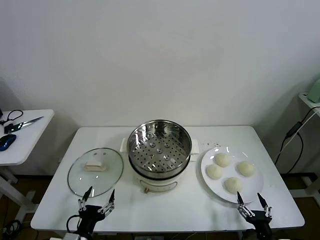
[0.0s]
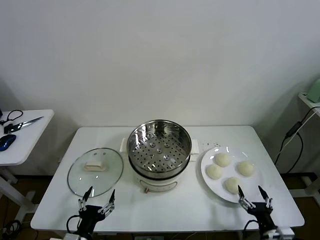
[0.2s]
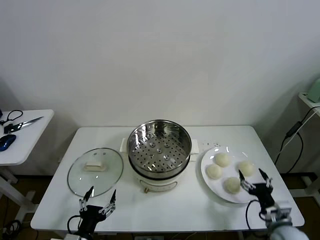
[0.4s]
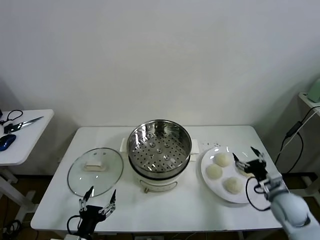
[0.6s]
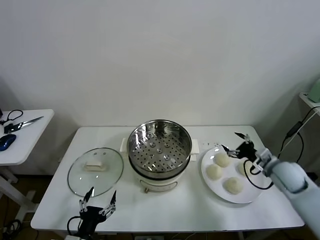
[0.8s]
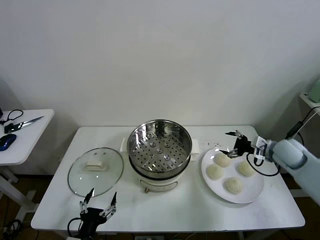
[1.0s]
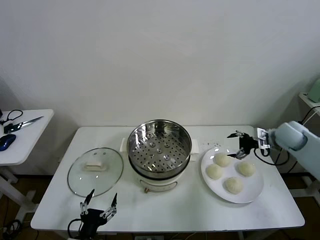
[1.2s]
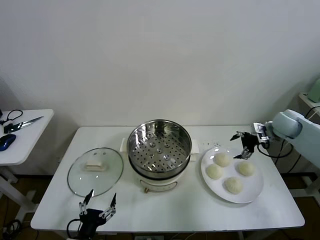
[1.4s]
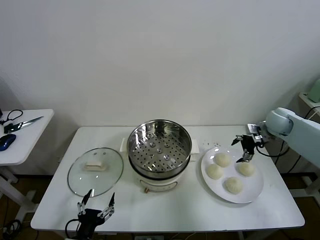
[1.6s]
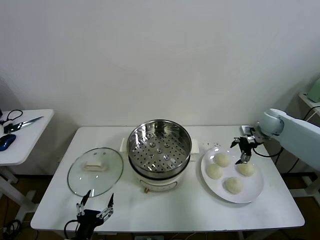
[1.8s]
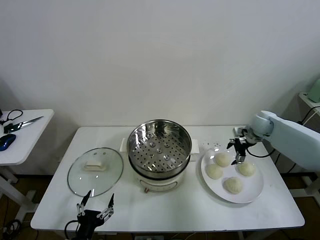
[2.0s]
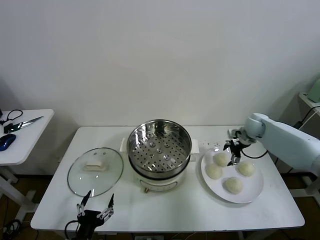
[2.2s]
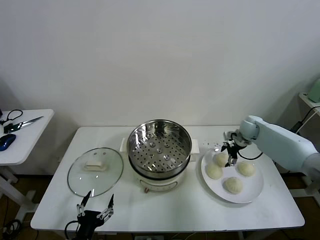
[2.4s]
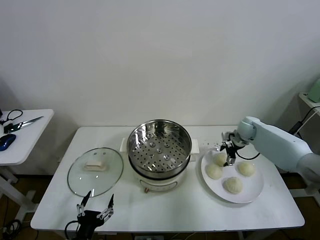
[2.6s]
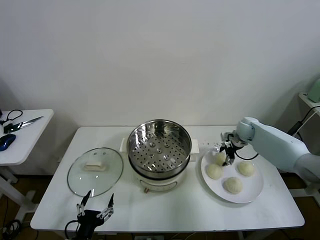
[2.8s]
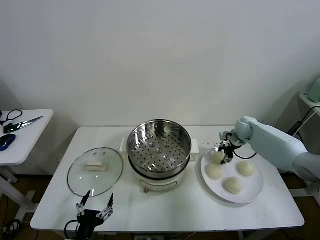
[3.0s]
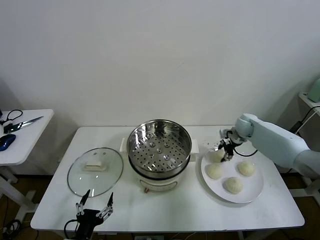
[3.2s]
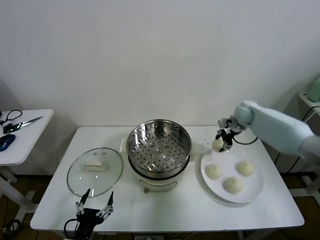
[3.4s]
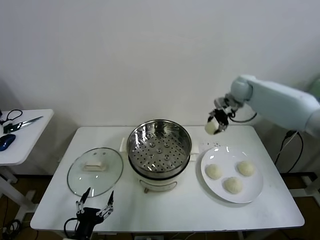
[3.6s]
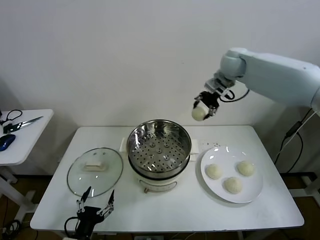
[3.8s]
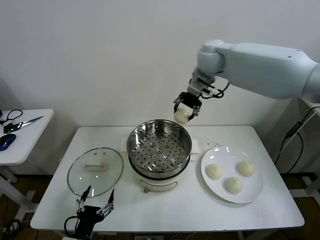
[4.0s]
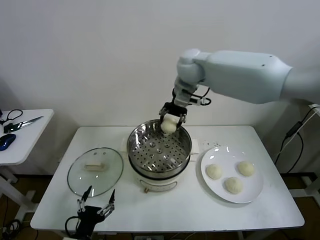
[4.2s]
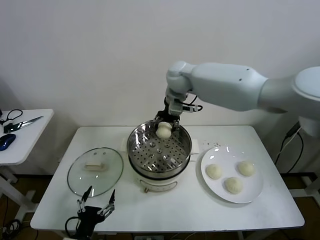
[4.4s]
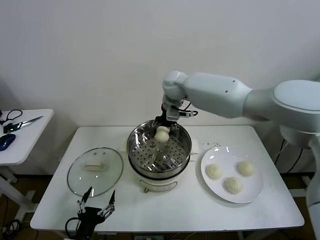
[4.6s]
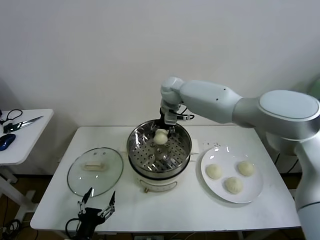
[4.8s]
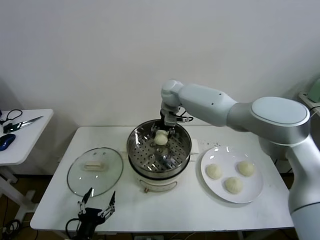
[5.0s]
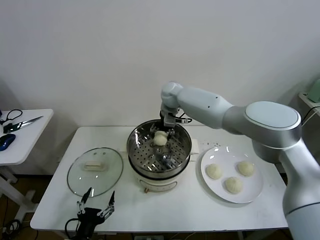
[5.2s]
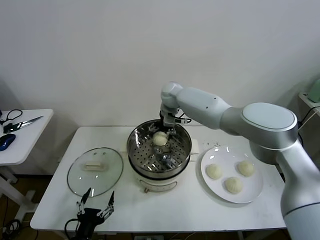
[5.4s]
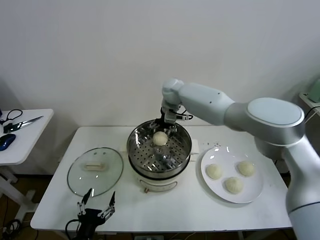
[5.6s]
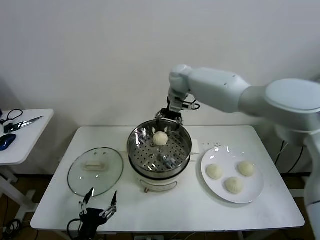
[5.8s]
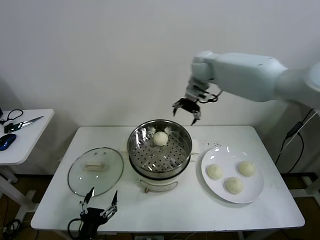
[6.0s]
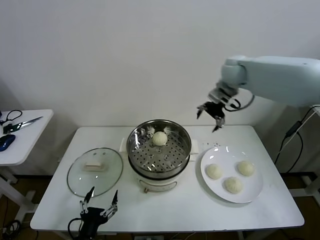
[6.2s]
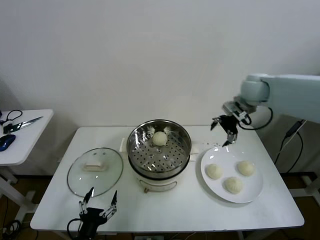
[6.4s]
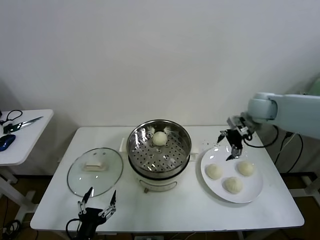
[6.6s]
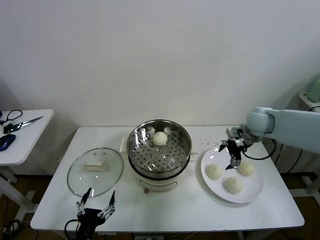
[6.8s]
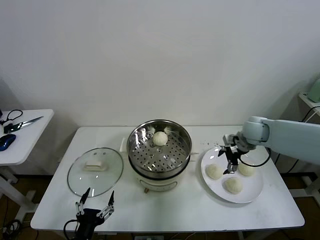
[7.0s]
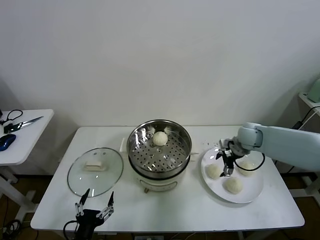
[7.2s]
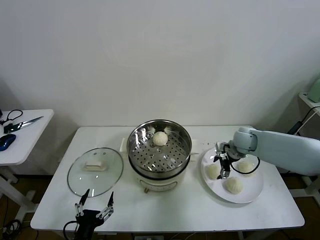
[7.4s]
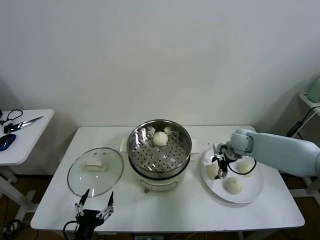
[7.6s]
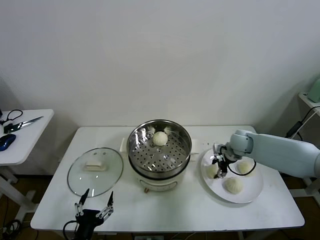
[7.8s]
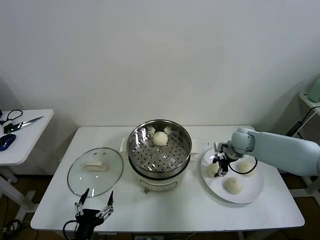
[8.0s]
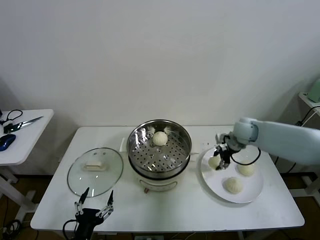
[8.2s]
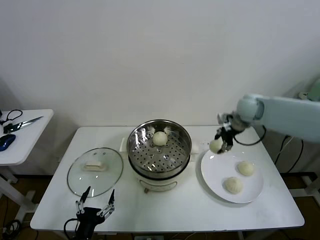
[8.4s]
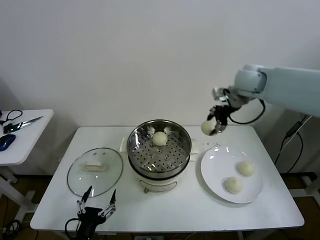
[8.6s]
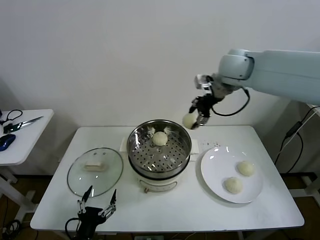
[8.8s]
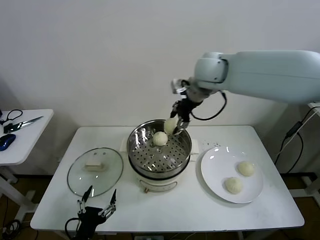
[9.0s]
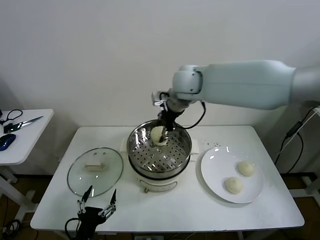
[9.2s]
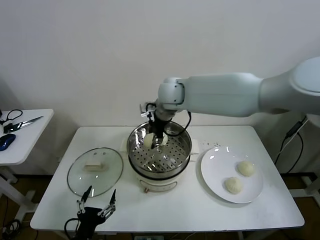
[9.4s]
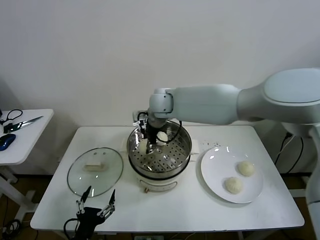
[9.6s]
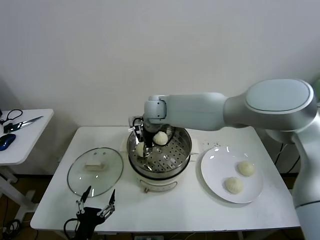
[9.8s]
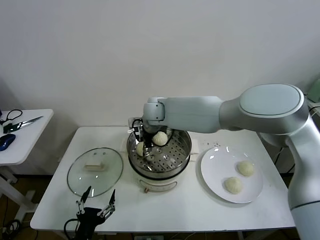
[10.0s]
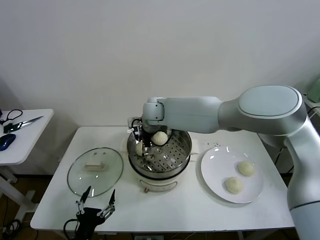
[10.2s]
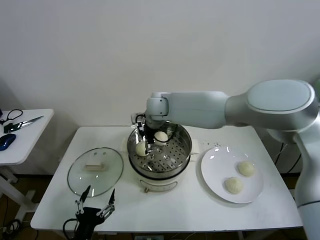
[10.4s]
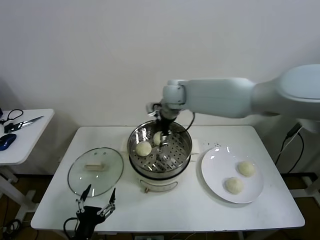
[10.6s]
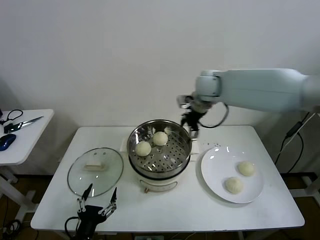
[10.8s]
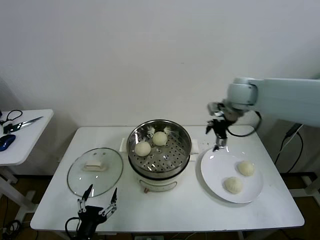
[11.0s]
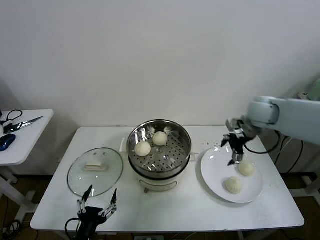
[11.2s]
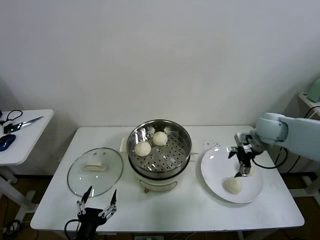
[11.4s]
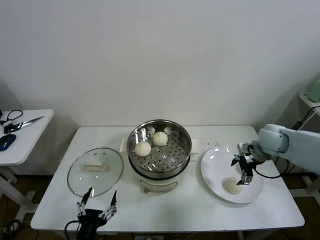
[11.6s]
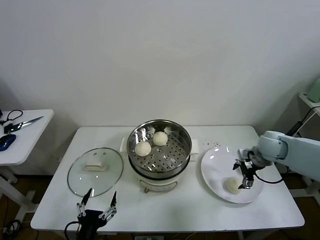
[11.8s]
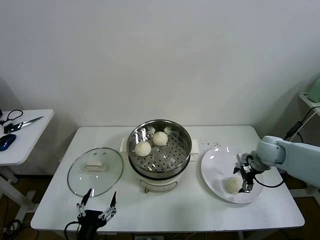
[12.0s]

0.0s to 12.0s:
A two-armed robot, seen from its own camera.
Task of the whole recording: take steamed baozi put them in steamer then cover it.
Step, 0.0s to 2.8s: Grasp the baozi in the plate with right gripper.
Step, 3.0s to 5.2s: Place the baozi on the steamer with right gripper.
Step, 5.6s to 7.8s: Grasp the baozi in the plate with right gripper.
Step, 8.0s to 10.2s: Place the baozi on the steamer with right gripper.
1.6s to 3.0s: The right gripper goes approximately 10 cm downward, to the left and forward, and closes its fingers.
3.0s to 4.4s: The right gripper travels to the left and upward by some 40 cm.
4.4s to 6.0s: The right gripper travels to the right by approximately 15 cm, and opens up.
6.0s to 7.6s: The right gripper is displaced downward and to the right by about 30 cm.
7.6s to 9.0s: The right gripper heads upward and to the left, covering approximately 35 cm, and closes its fingers.
9.0s to 10.4s: The right gripper moves downward and to the left, roughly 15 cm, and opens.
10.4s to 12.0s: The right gripper goes roughly 35 cm to the right.

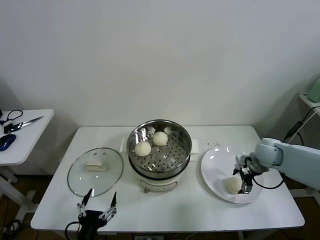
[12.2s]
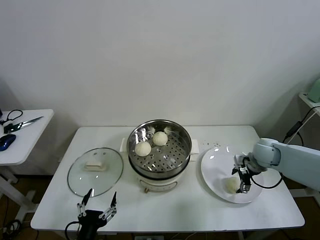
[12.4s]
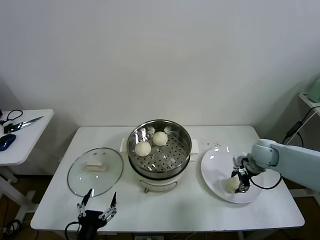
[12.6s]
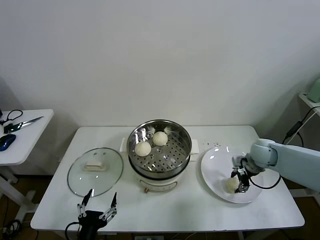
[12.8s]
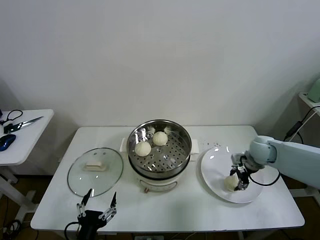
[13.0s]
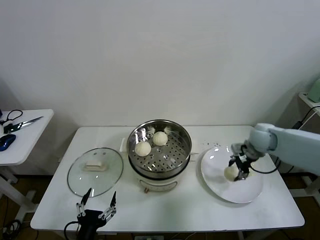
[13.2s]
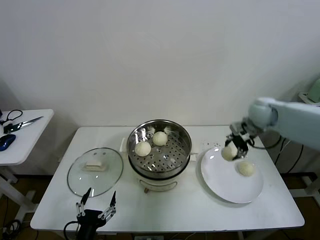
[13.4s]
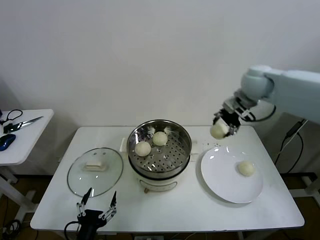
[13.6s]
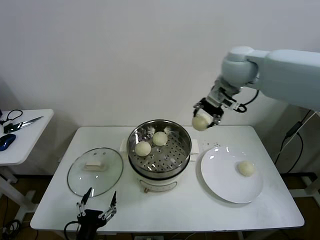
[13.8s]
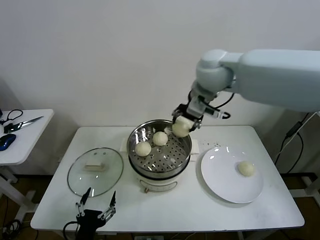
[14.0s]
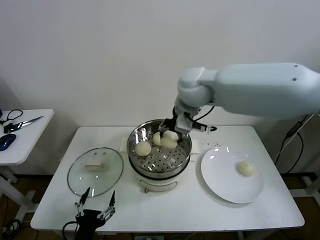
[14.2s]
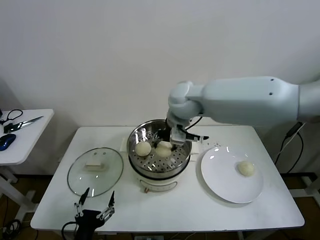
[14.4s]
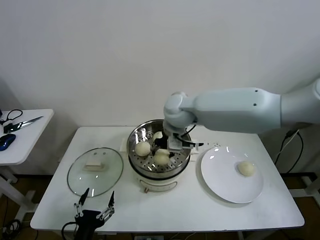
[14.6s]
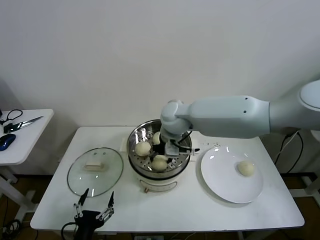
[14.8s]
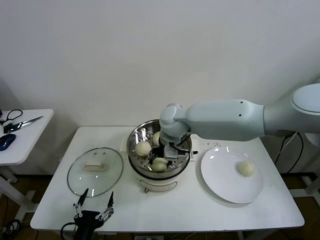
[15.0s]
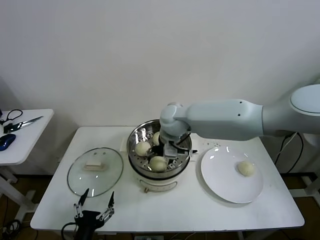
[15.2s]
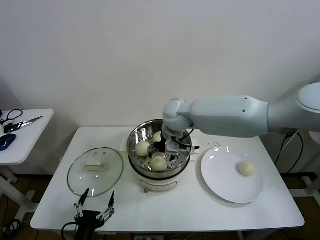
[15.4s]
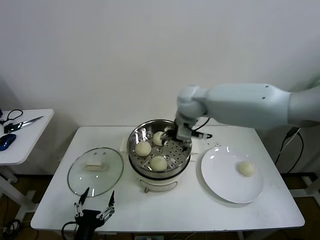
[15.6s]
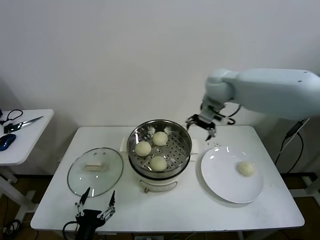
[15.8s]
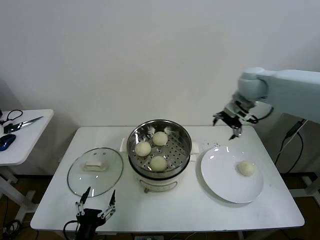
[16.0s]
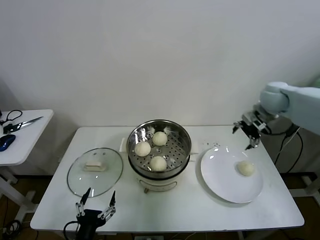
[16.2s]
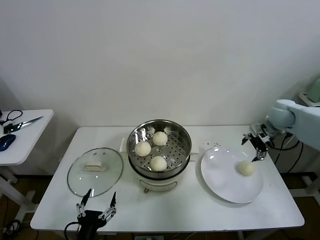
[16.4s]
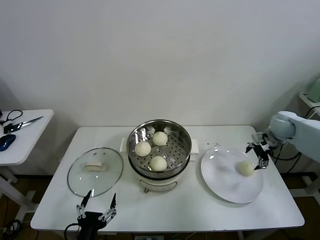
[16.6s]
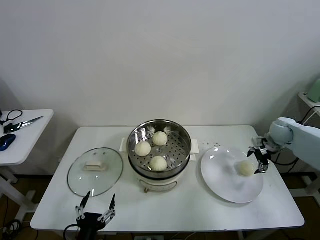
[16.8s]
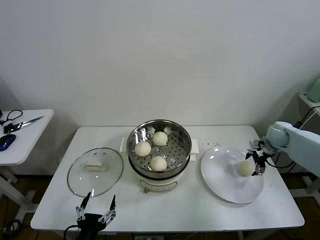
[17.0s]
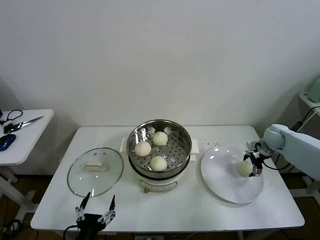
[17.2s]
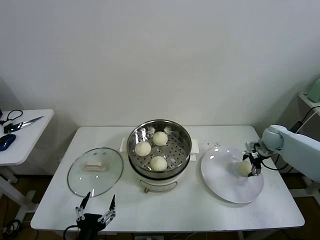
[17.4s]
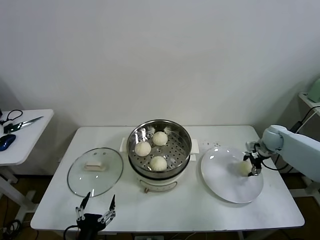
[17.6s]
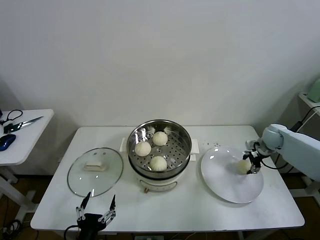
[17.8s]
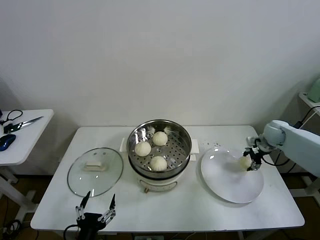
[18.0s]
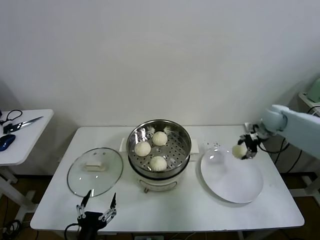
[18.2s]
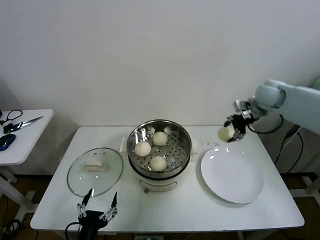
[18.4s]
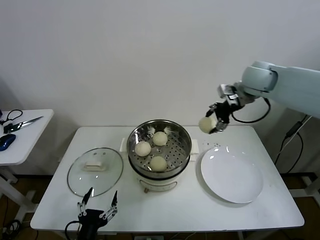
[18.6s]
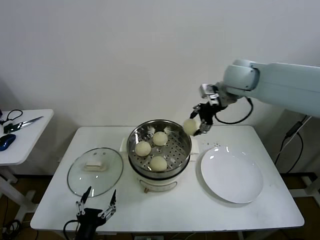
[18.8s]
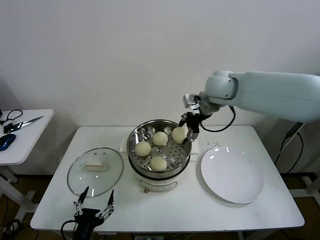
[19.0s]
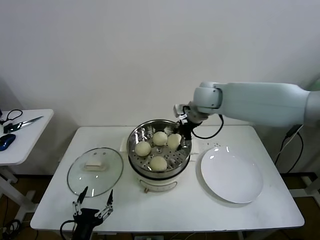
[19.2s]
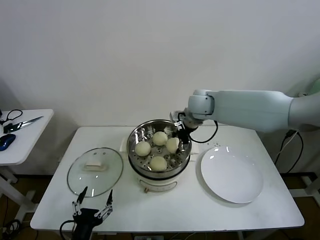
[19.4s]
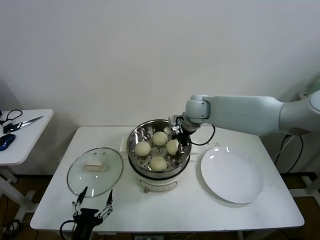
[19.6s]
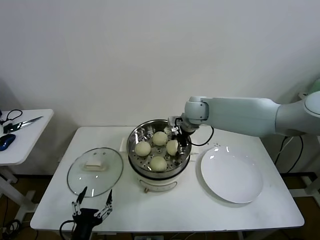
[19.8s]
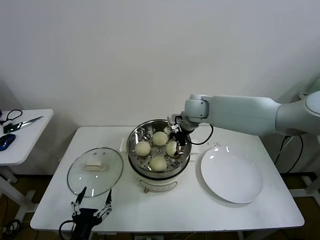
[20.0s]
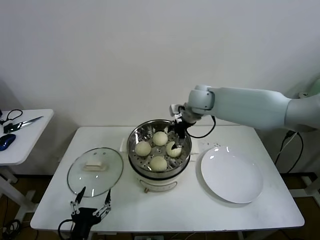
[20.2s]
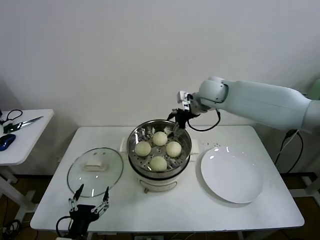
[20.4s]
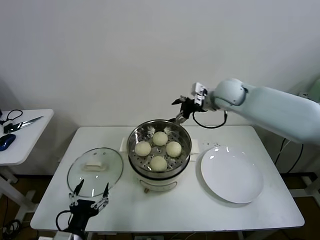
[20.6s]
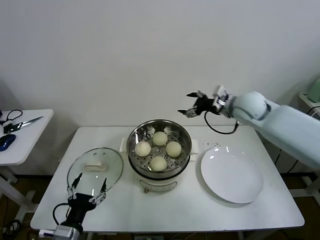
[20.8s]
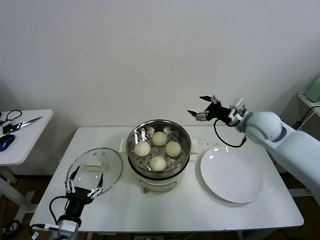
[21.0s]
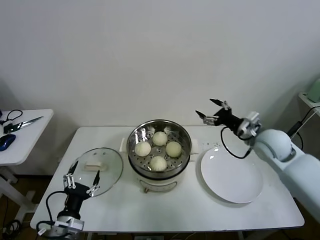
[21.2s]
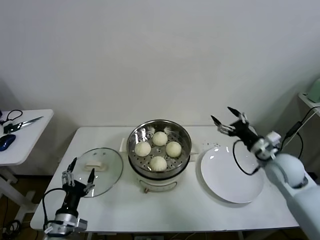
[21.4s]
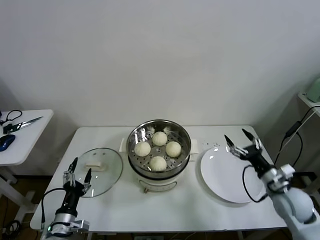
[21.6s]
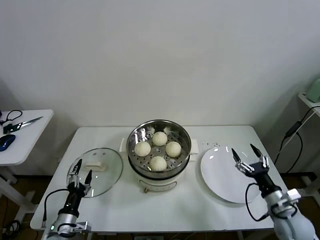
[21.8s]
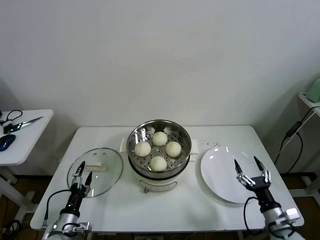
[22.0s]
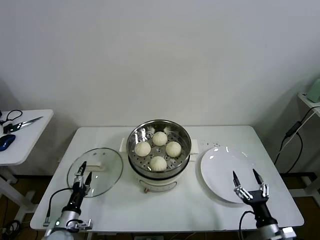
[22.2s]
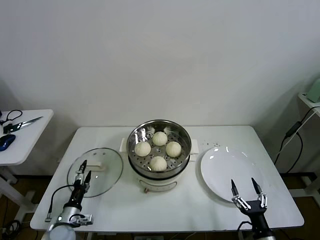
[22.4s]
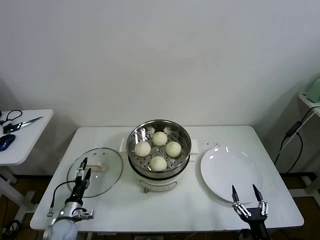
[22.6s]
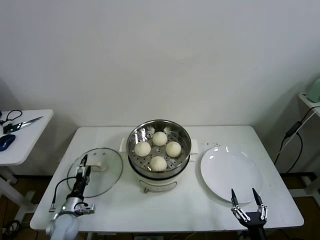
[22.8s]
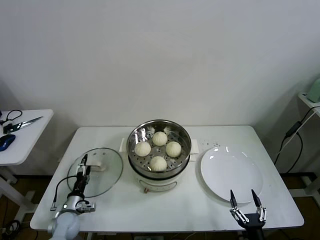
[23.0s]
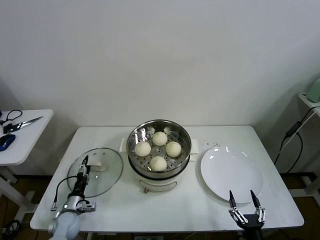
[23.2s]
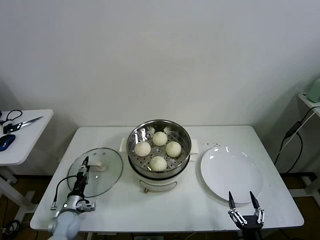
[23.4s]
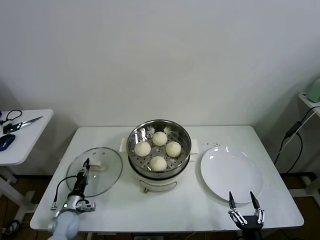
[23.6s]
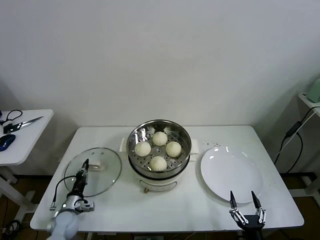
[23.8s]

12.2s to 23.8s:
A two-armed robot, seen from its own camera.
Task of the whole recording: take steamed baozi put them in steamer then cover it.
Step, 12.8s to 15.2s: Place the baozi on the steamer with right gripper.
Step, 15.4s to 17.6s: Grasp the baozi in the plate with right gripper.
Step, 17.8s to 19.8s: Place the baozi on the steamer with right gripper.
Step, 20.0s to 23.6s: Grasp the pot lid with left gripper.
12.2s to 13.6s: The right gripper heads upward and to the left, covering some 30 cm, and closes.
13.6s to 15.0s: The right gripper is displaced to the left and downward by about 25 cm.
15.0s to 16.6s: The right gripper travels to the right by about 40 cm, and opens up.
16.6s to 18.0s: The right gripper closes its fingers.
18.0s to 19.4s: The right gripper moves to the left and upward, roughly 35 cm.
19.4s to 21.0s: The right gripper shifts some 20 cm to the right and backward, and opens; the left gripper heads forward, covering some 5 cm.
21.0s to 22.4s: The right gripper is displaced backward and downward by roughly 40 cm, while the left gripper is displaced downward, forward and to the left by some 15 cm.
22.4s to 23.8s: The right gripper moves about 5 cm, while the left gripper heads forward, covering about 5 cm, and closes up.
